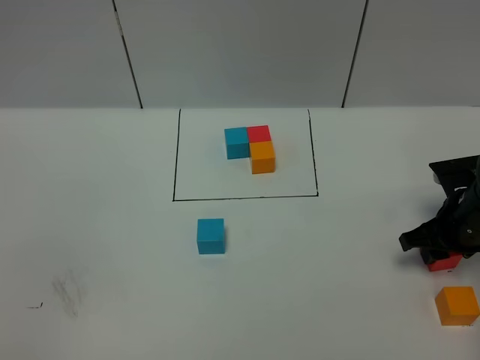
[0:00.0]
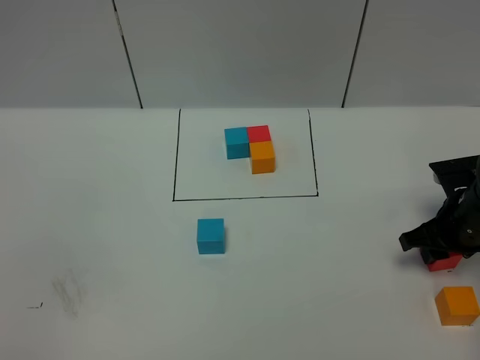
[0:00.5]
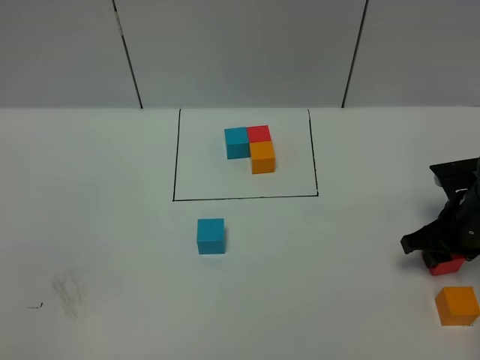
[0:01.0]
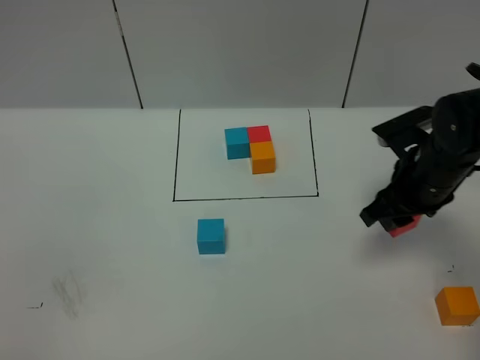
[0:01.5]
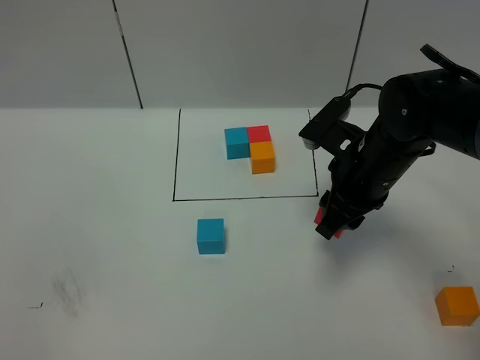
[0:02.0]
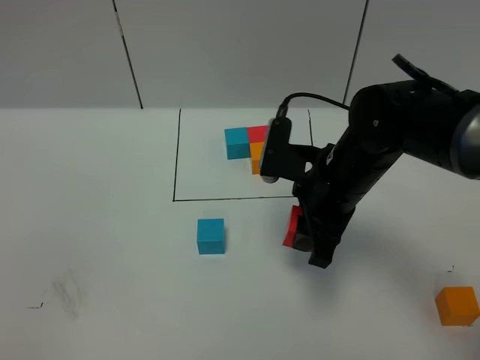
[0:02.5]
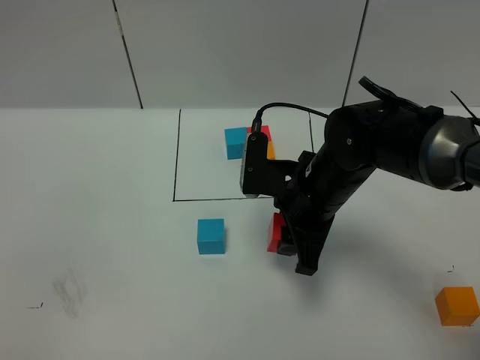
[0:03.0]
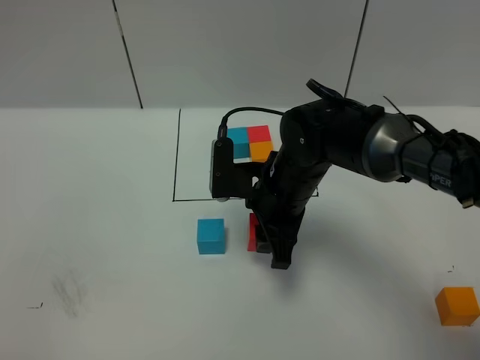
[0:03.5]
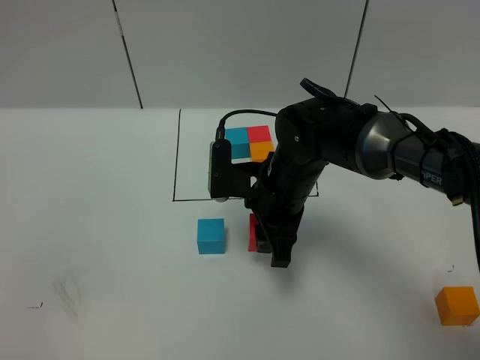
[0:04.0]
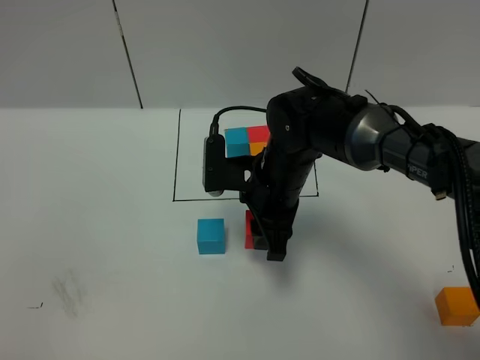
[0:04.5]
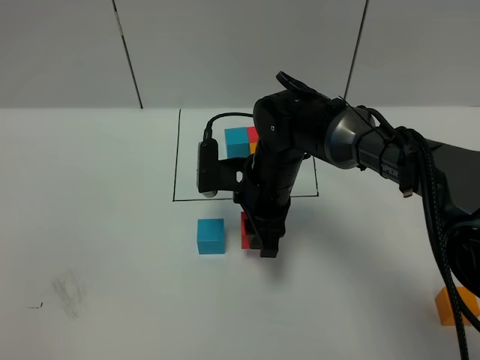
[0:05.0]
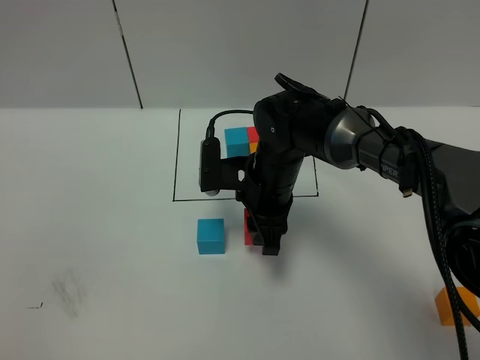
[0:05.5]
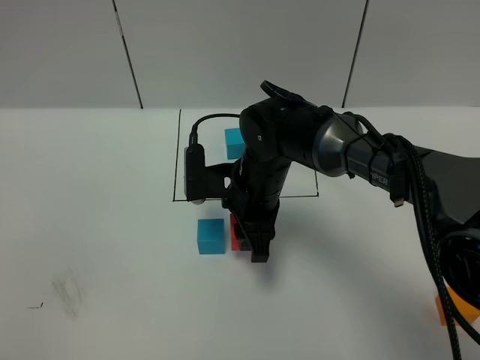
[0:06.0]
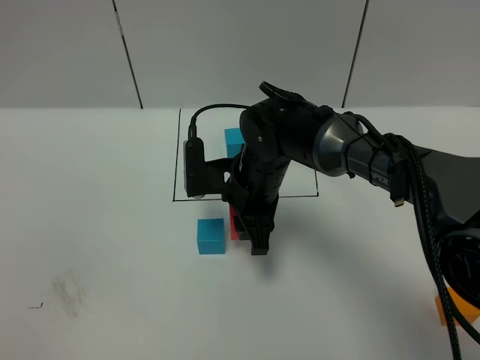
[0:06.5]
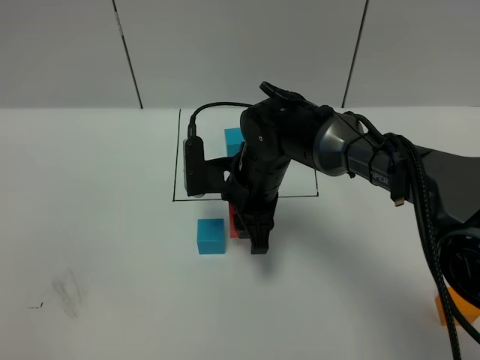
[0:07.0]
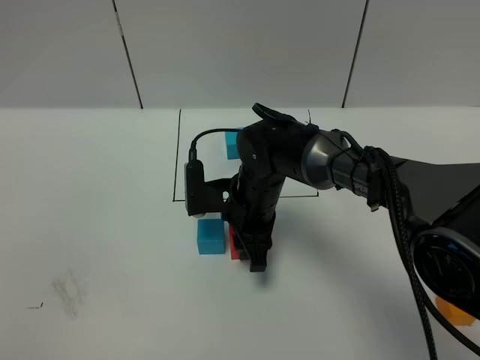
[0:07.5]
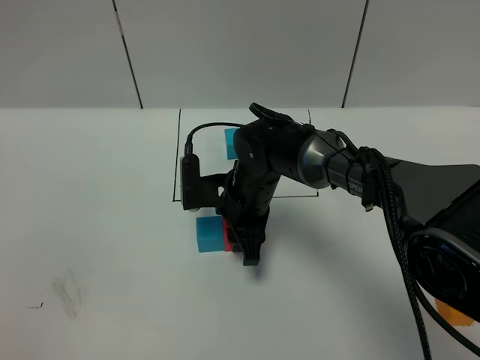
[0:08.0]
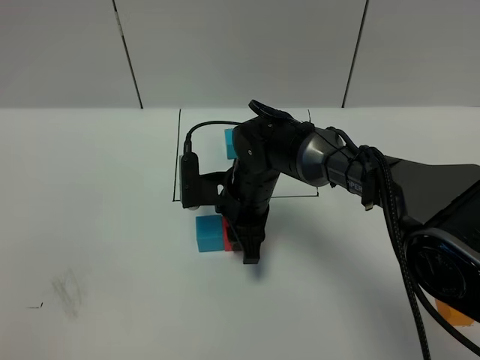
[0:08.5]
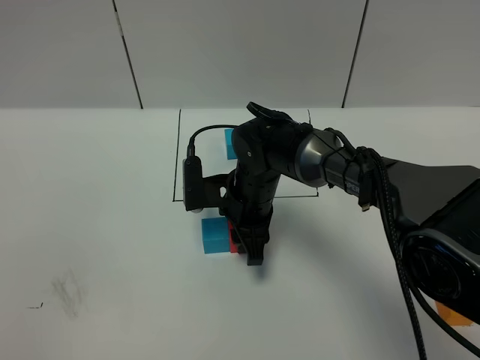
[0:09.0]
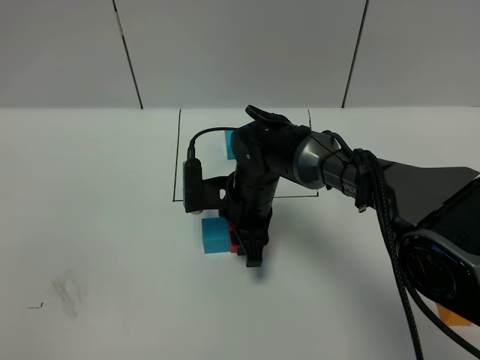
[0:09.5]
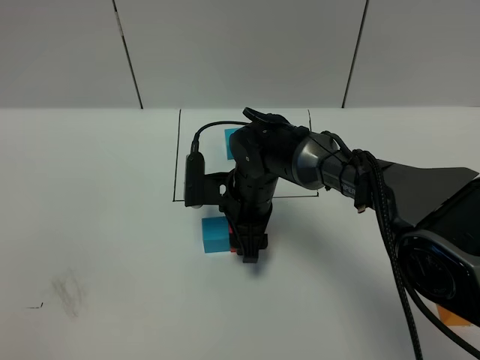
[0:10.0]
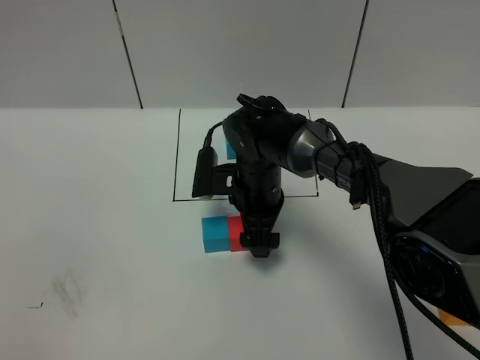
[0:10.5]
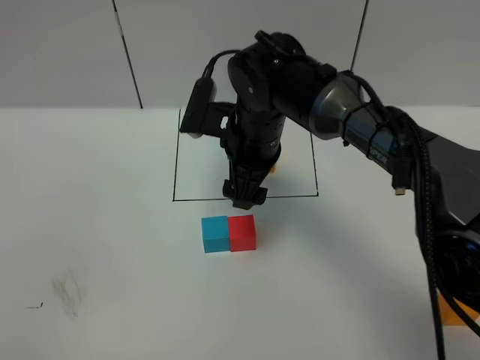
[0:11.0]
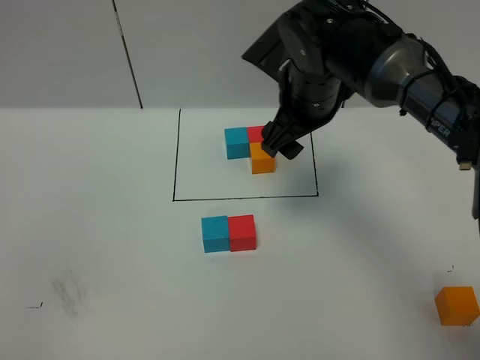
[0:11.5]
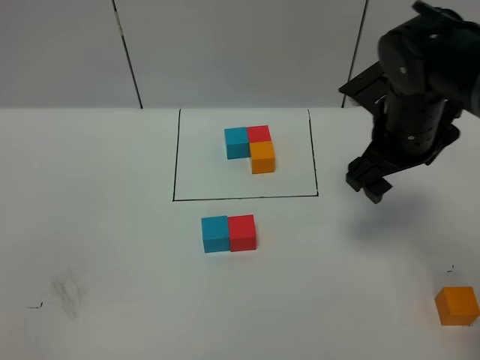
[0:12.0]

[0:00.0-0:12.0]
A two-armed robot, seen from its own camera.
Task of the whole recording: According to the building block template in front, assemble the scattered blocks together.
Step, 0.0 to 10.5 s: Put the red cube on the right of the blue cube.
0.0 to 2.0 s: The right gripper shifts some 15 cm to the left and upward.
2.0 to 4.0 s: The right gripper travels to the left by approximately 10 cm.
4.0 to 6.0 s: The grippers move only a little.
6.0 to 8.0 s: The grippers make only small movements.
8.0 to 10.0 s: The right gripper opens.
10.0 to 12.0 s: The right gripper shifts roughly 25 cm to the right and upward.

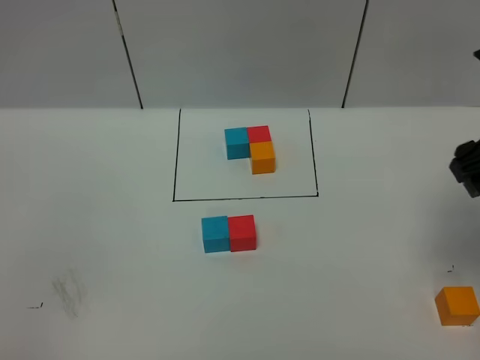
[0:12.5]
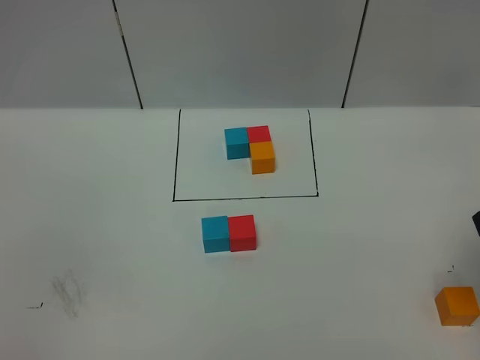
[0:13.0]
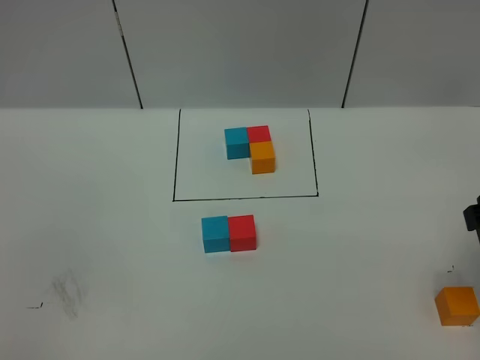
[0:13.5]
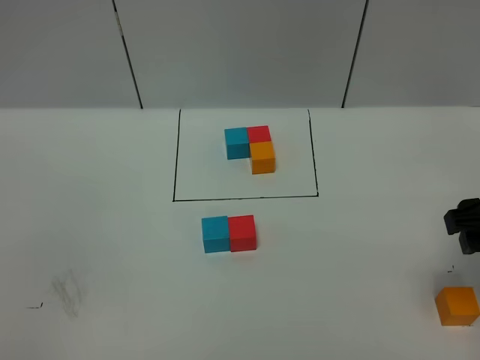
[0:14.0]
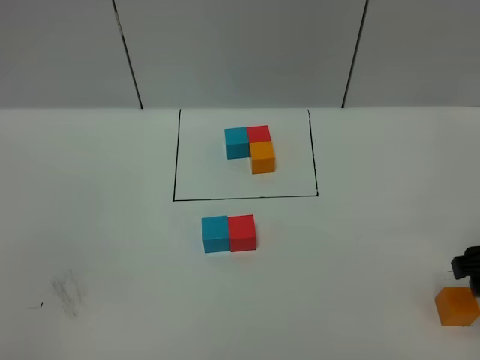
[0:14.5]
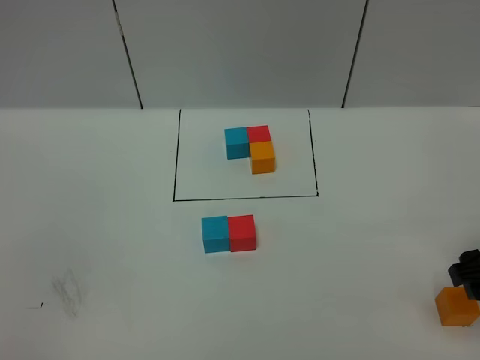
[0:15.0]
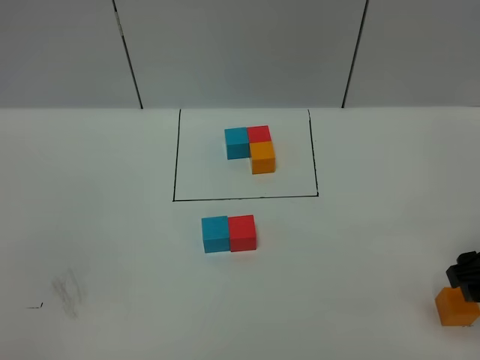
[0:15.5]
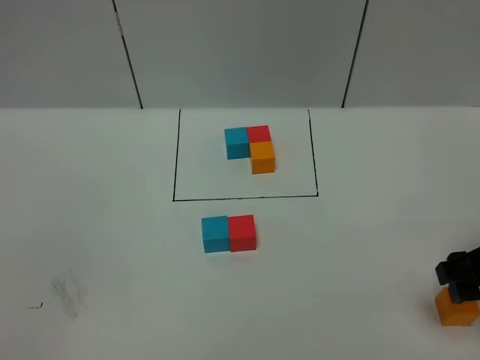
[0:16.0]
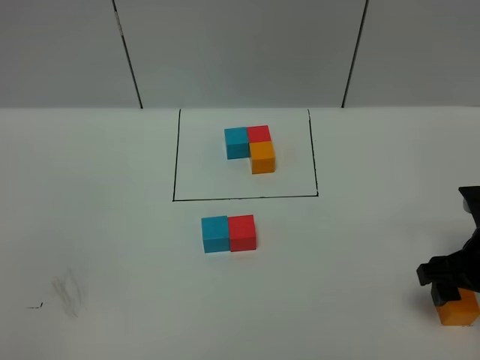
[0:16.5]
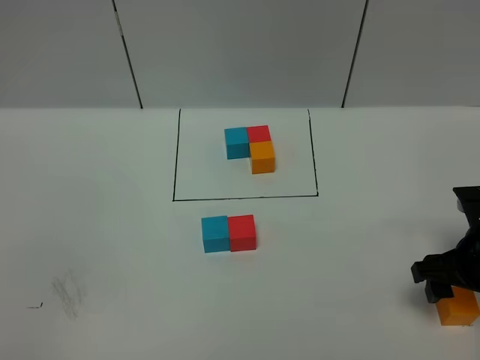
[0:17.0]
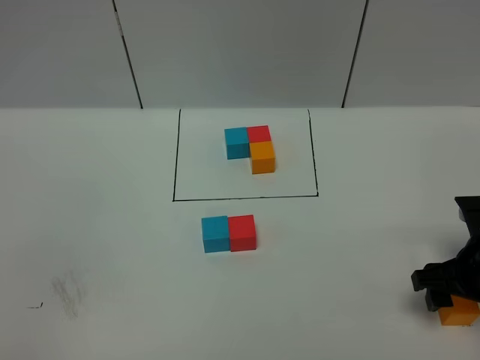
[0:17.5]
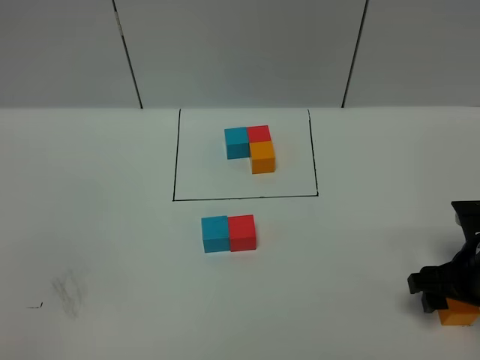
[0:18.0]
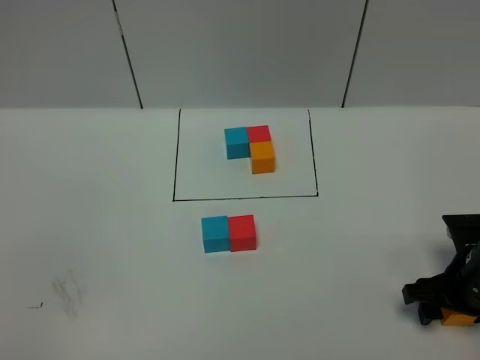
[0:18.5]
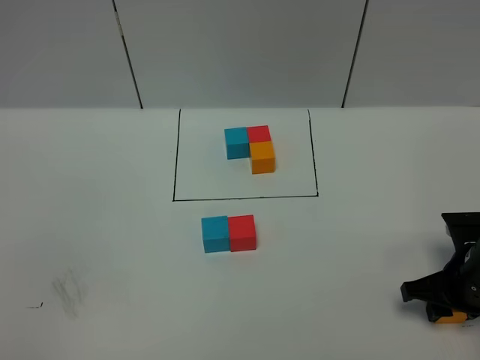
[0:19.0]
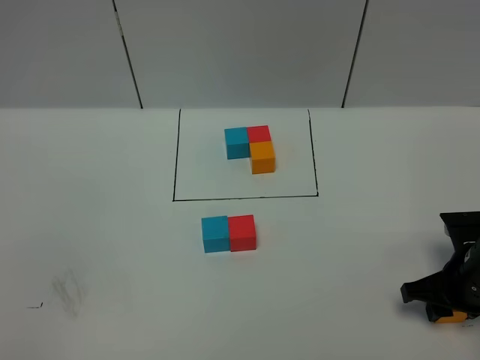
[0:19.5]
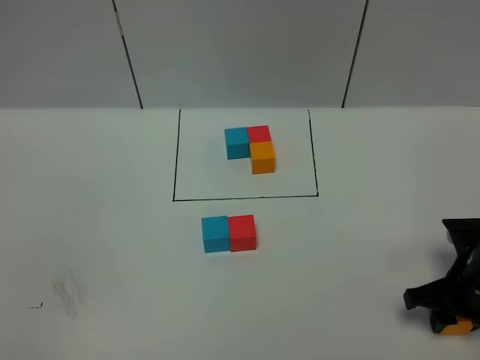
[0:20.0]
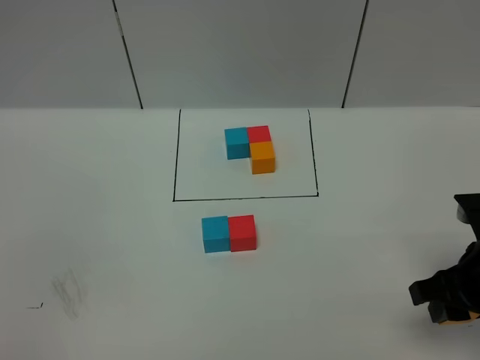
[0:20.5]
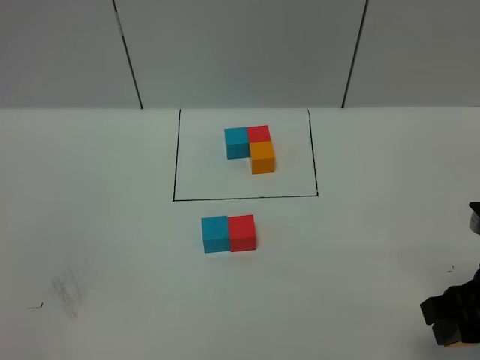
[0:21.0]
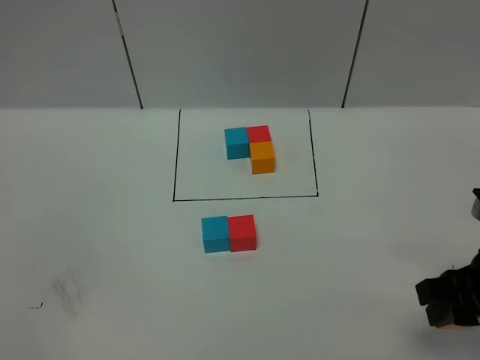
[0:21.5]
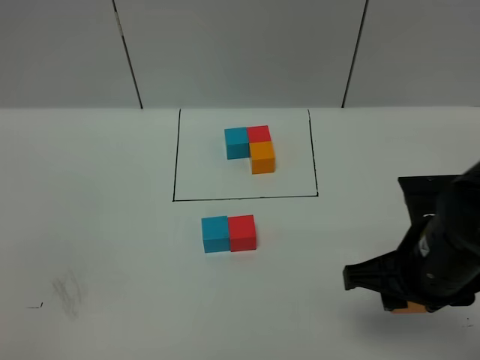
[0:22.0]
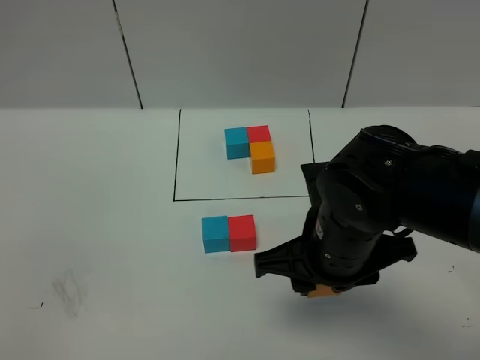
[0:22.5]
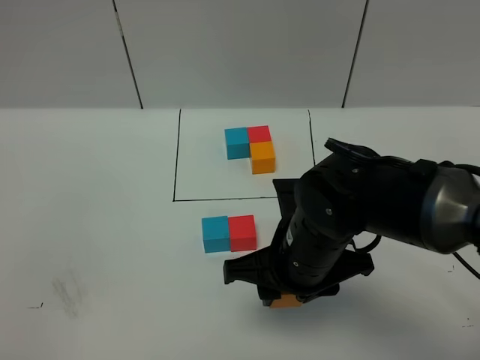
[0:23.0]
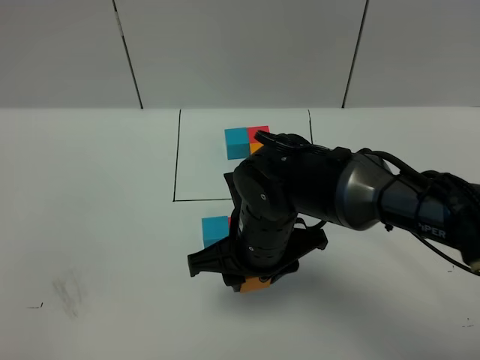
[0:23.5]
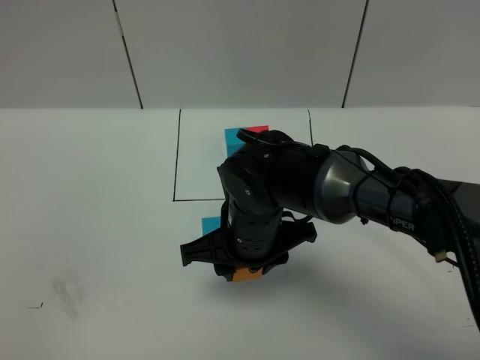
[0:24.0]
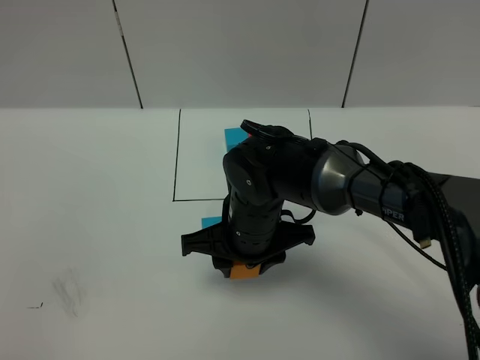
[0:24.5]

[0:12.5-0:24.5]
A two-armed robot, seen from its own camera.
Task of the whole recording: According to the building block template in front, assemble the scattered blocks together.
12.5 to 14.5 s: The right gripper travels downward and backward by approximately 15 cm.
14.5 to 16.5 s: The right gripper shifts by about 5 cm.
16.5 to 18.5 s: The right gripper heads downward, covering approximately 5 cm.
18.5 to 20.5 s: The right gripper moves upward, roughly 10 cm, and closes.
20.5 to 22.5 s: The right gripper travels to the left by some 15 cm.
22.5 to 24.5 s: The right gripper shifts roughly 10 cm to the left, forward and downward.

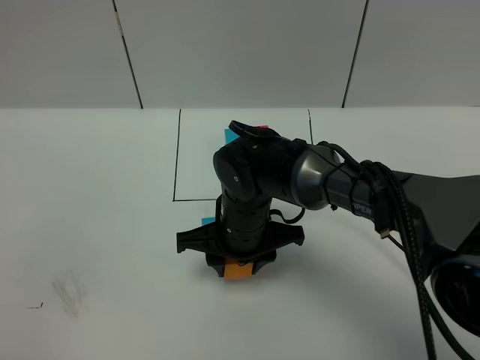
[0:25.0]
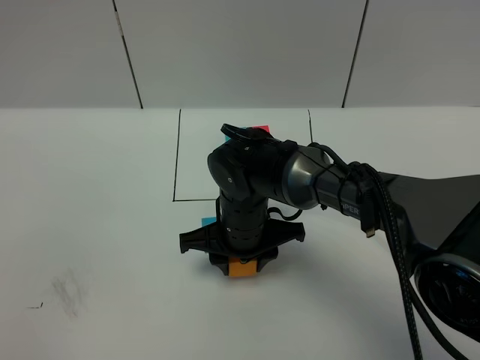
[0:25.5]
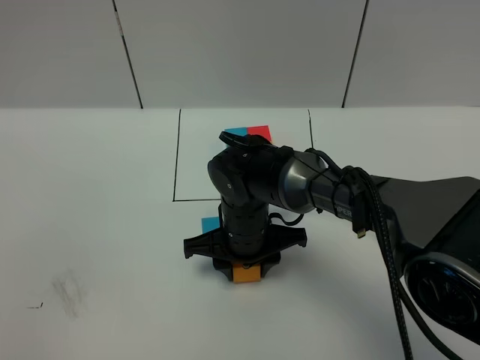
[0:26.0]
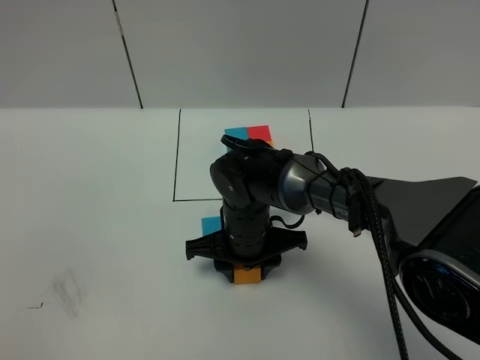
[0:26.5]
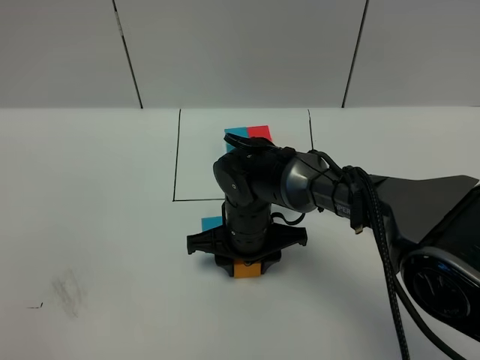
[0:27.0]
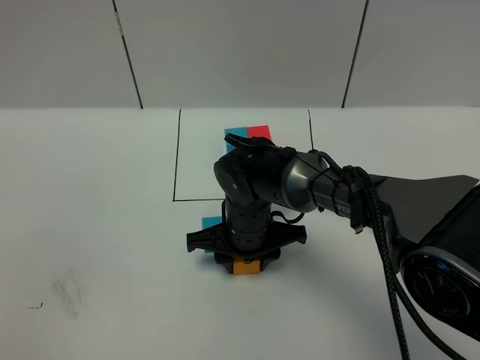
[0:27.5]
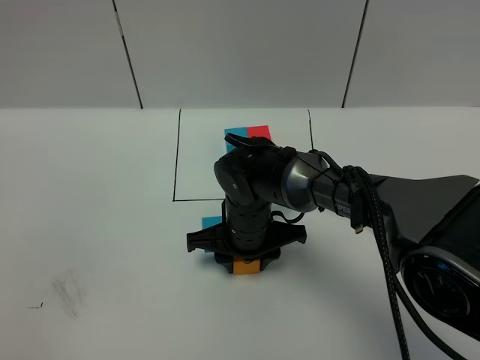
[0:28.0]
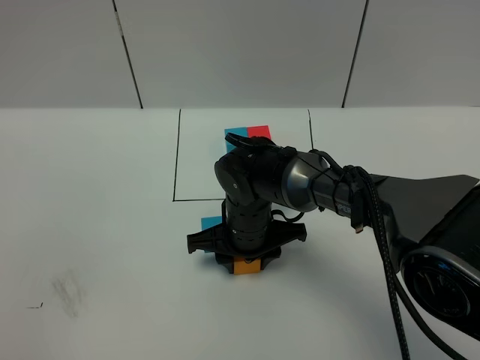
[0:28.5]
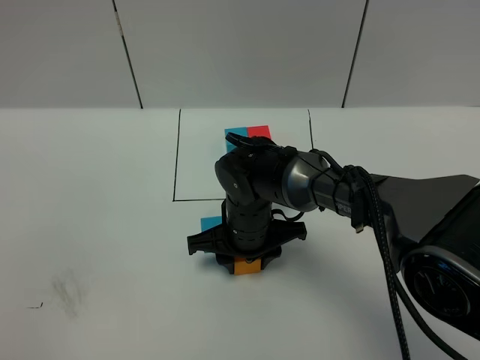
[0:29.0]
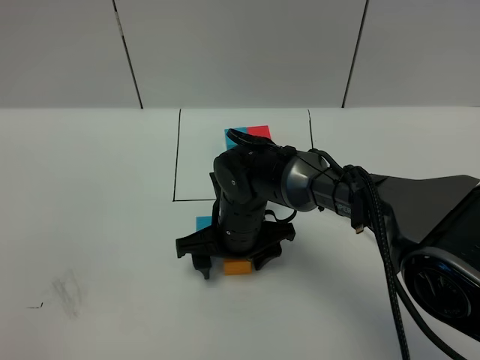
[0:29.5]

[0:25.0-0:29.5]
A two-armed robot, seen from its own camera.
Task of the whole recording: According to the building block template in front, assemble the scattered blocks together.
25.0 to 27.0 s: The grippers stay close to where they were, moving slightly.
27.0 to 29.5 s: The right gripper opens up.
